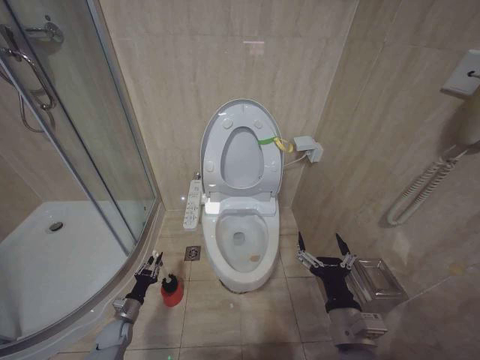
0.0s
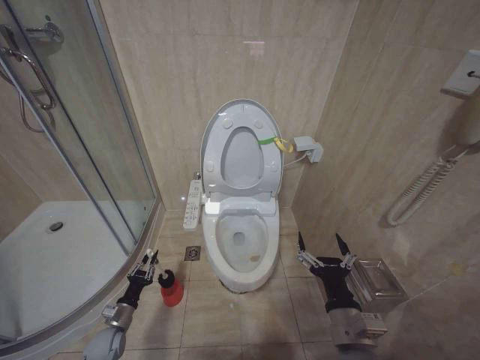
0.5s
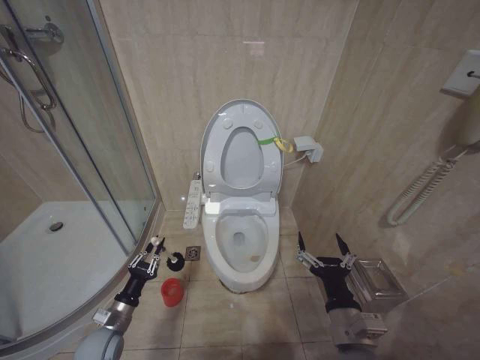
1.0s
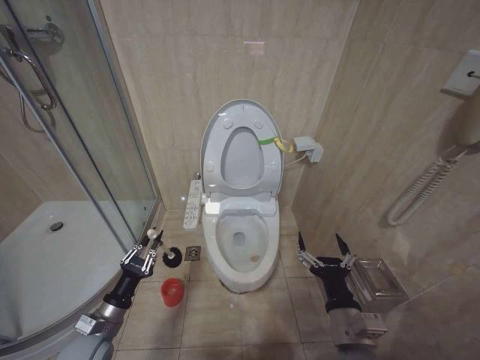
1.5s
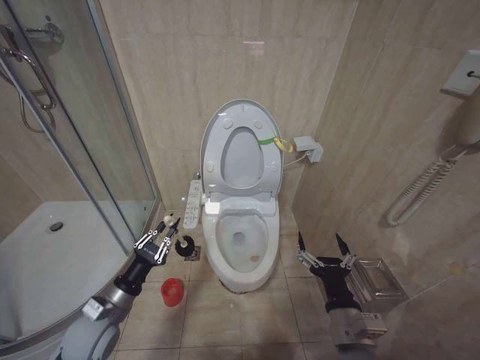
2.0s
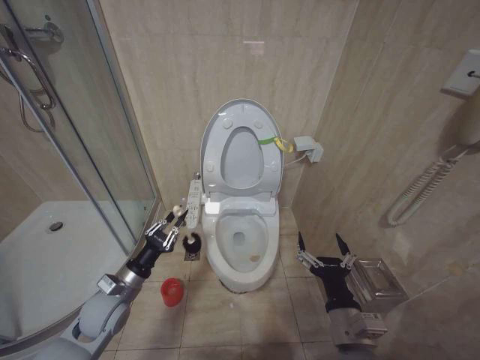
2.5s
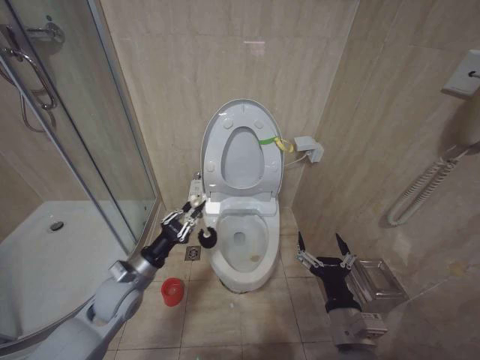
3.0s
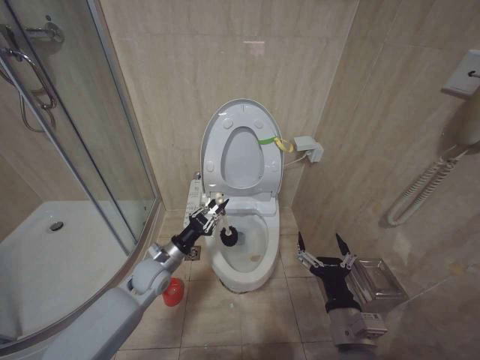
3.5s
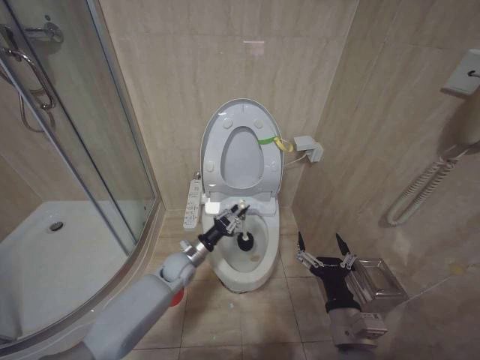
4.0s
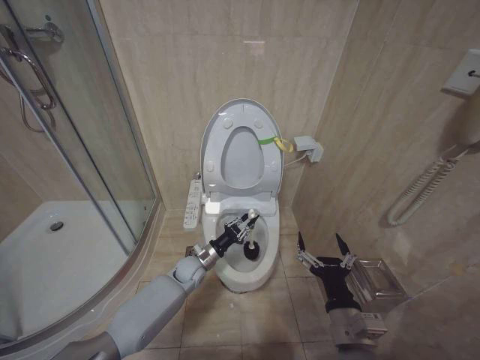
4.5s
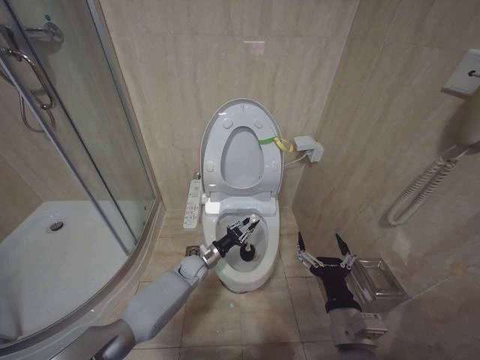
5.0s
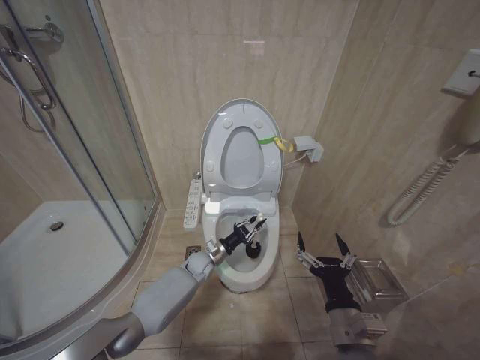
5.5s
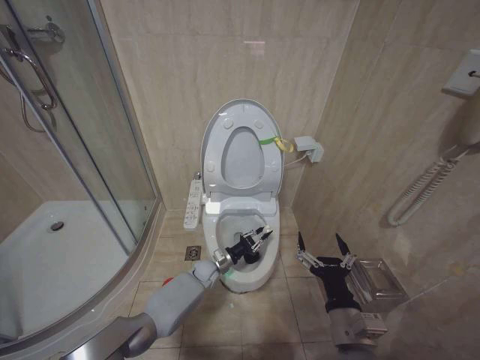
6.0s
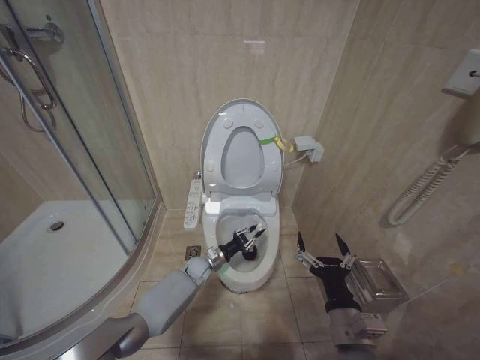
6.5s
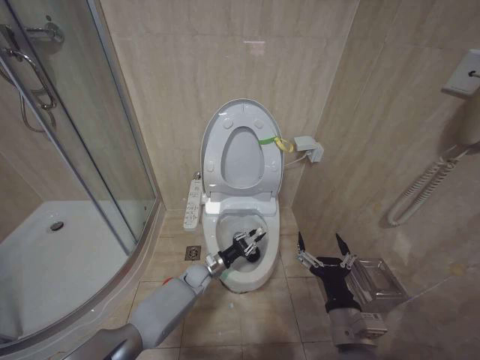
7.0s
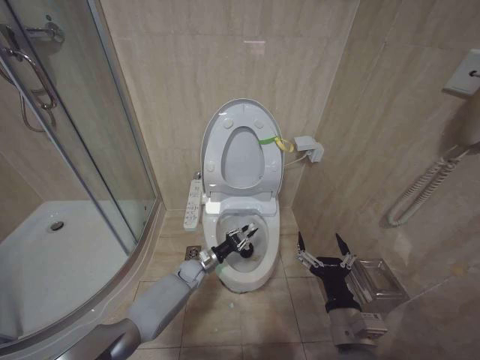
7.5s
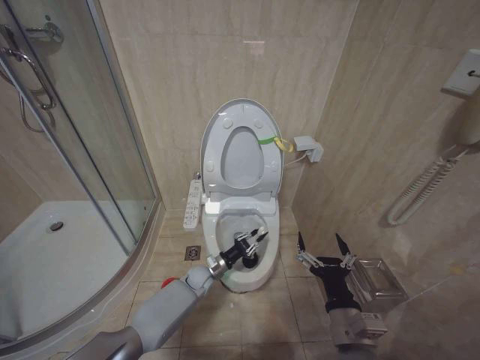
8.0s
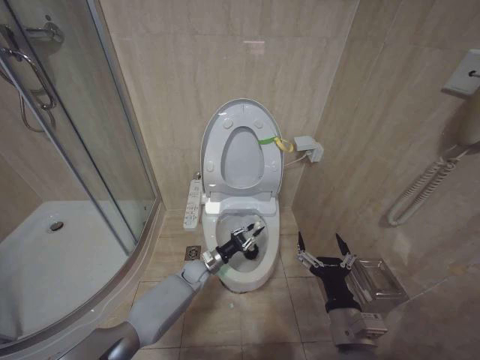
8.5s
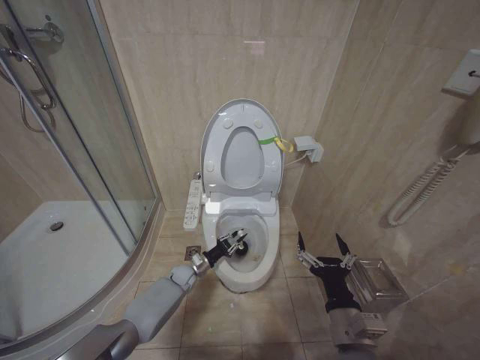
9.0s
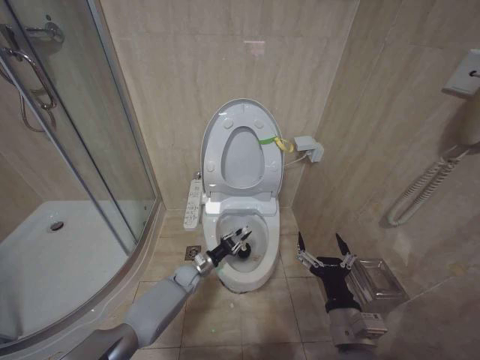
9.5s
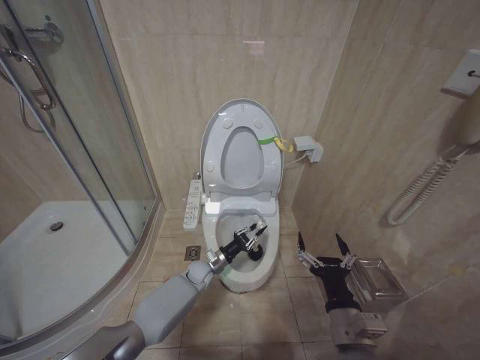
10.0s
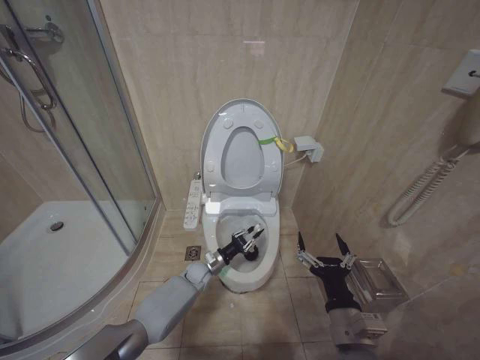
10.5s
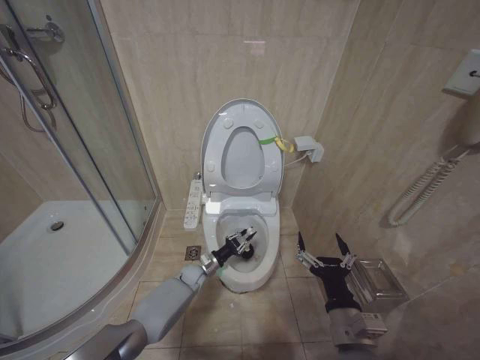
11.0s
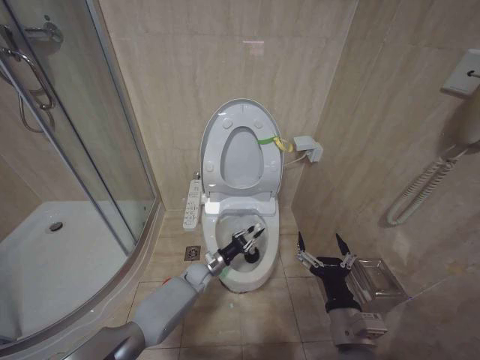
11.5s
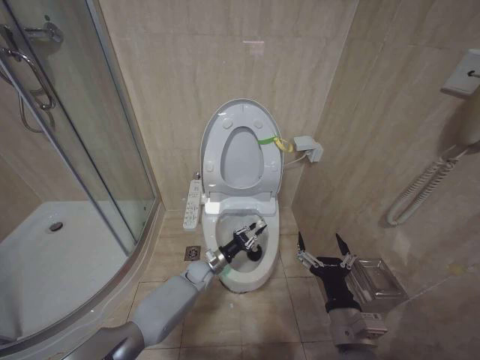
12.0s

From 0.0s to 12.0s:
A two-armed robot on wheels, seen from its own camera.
Task of the whole recording: Open the toilet lid, clean the toilet bowl with a toilet brush, close the toilet lid, and flush.
From 0.0s to 2.0s: The left gripper shifts about 25 cm upward.
From 2.0s to 4.0s: The left gripper travels forward and to the right by approximately 20 cm.
From 4.0s to 6.0s: The left gripper travels downward and to the right by roughly 15 cm.
From 6.0s to 8.0s: The grippers move only a little.

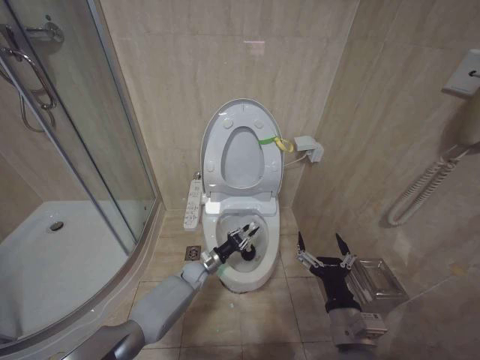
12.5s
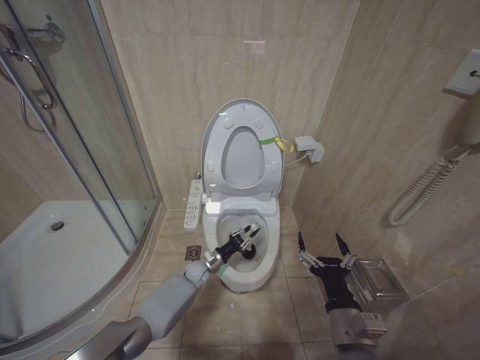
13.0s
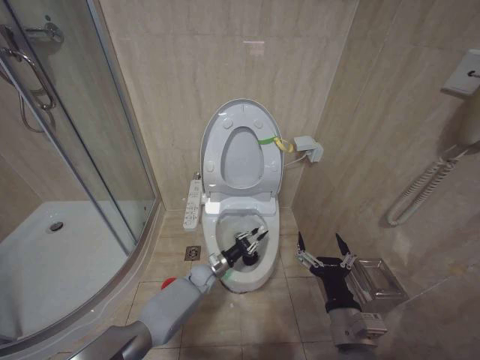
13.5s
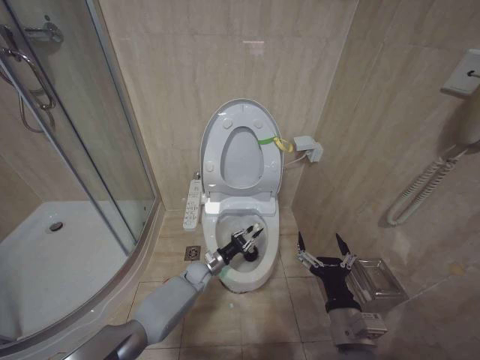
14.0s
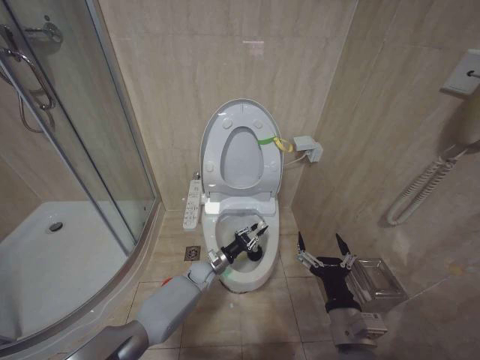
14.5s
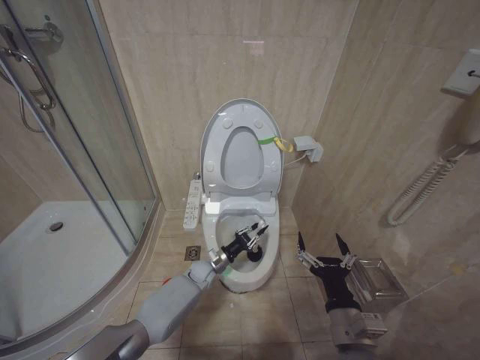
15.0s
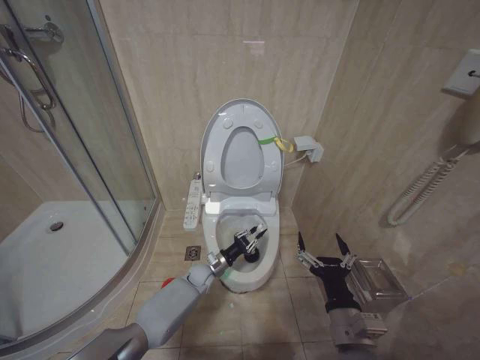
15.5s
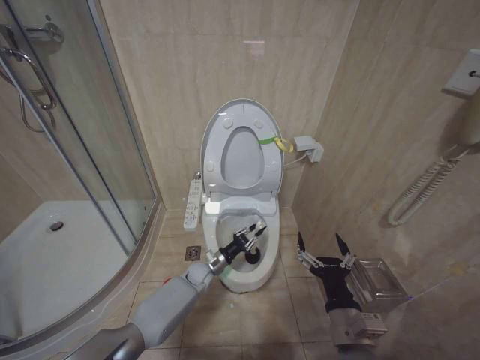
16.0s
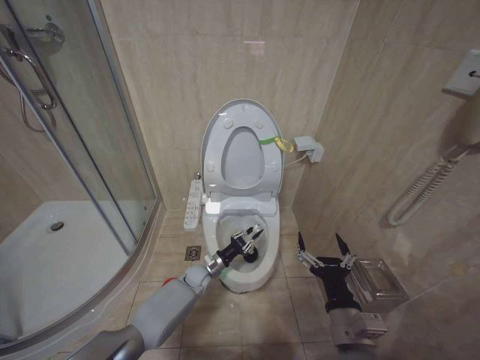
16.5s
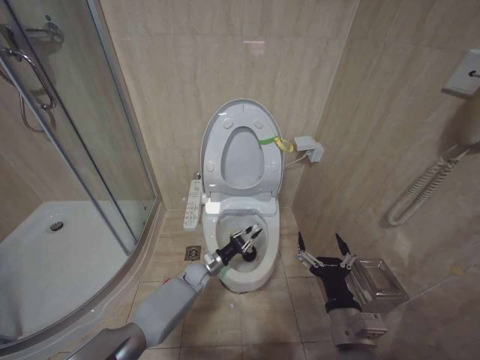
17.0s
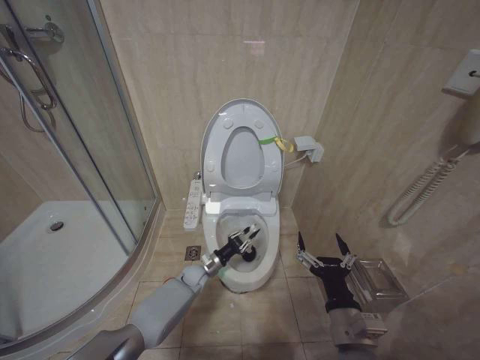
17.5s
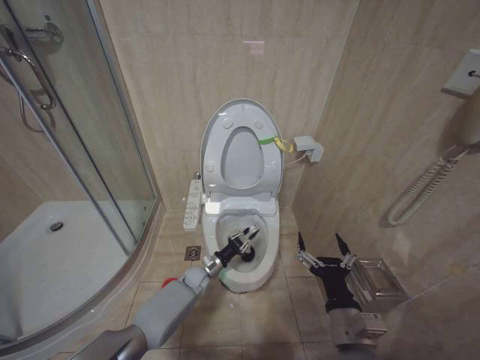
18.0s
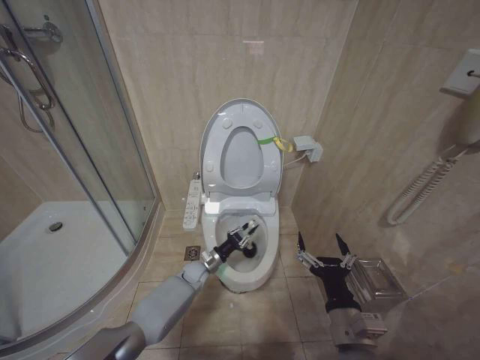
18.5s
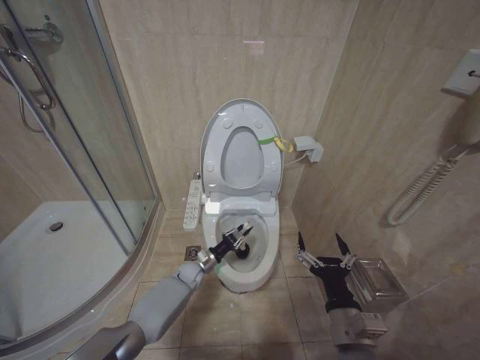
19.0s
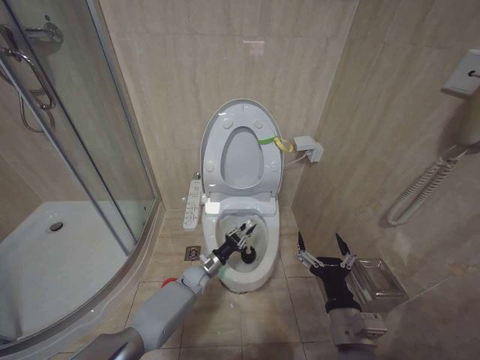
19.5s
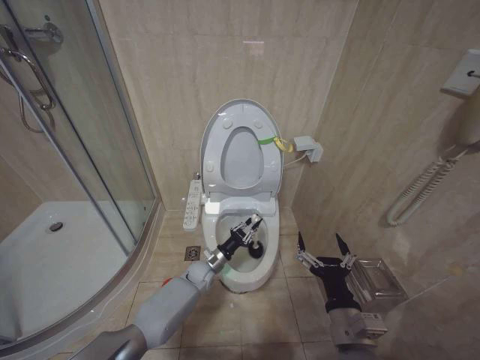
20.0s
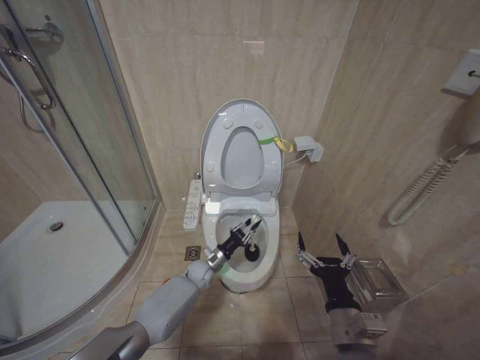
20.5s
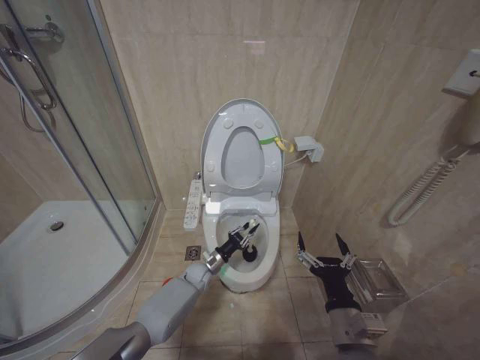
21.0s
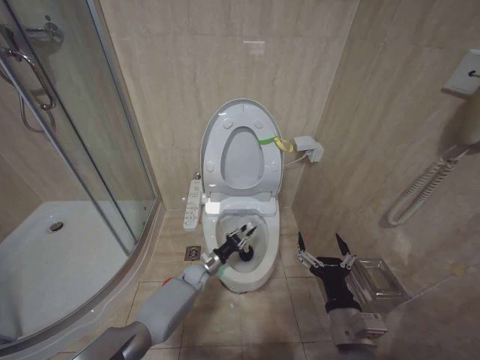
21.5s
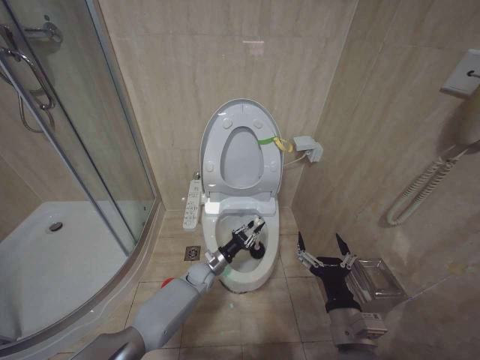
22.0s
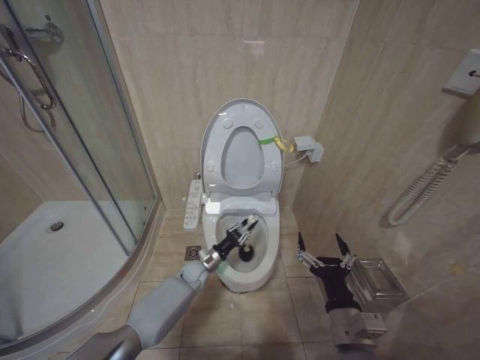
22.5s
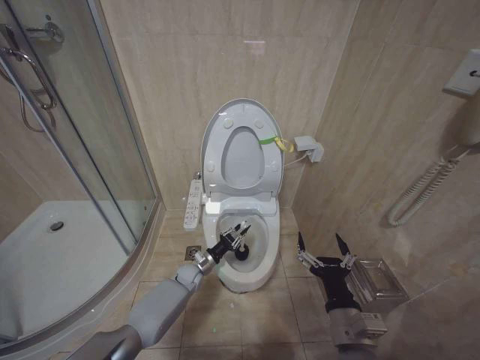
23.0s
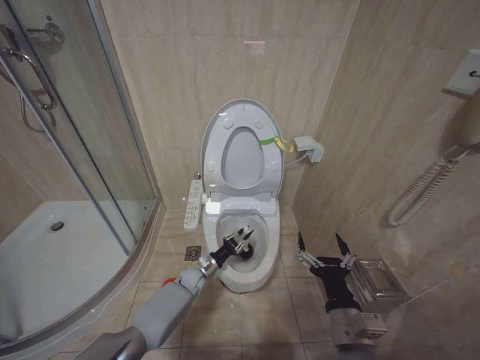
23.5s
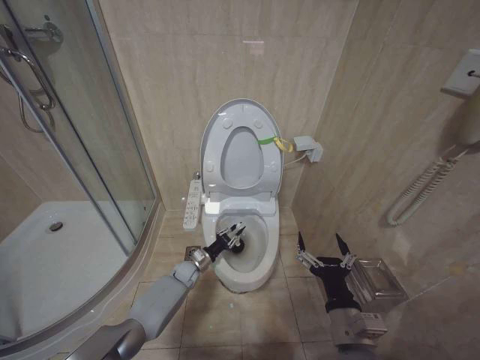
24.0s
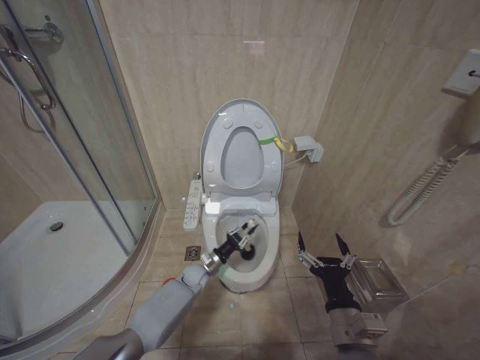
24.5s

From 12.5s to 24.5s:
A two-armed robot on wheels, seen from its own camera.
Task of the whole recording: Open the toilet lid, clean the toilet bowl with a toilet brush, close the toilet lid, and flush.
From 12.5s to 18.5s: The grippers move only a little.
From 20.5s to 22.5s: There are only small adjustments of the grippers.
From 22.5s to 24.5s: The grippers move only a little.

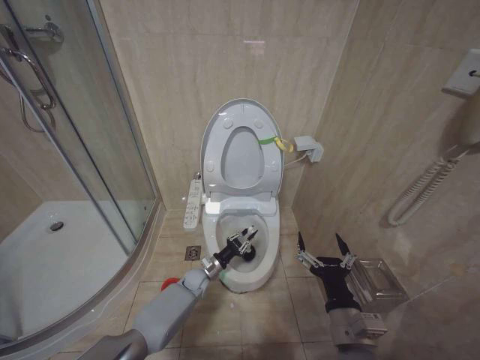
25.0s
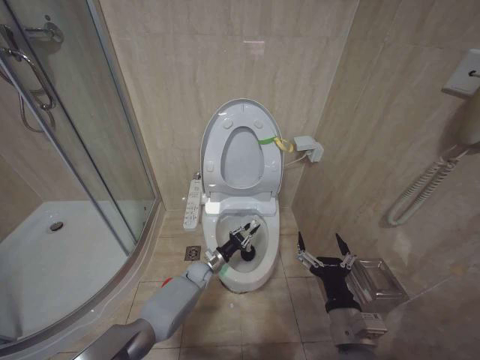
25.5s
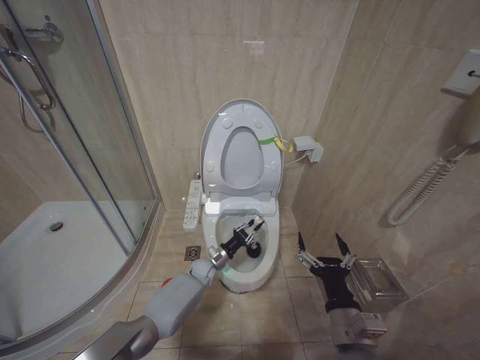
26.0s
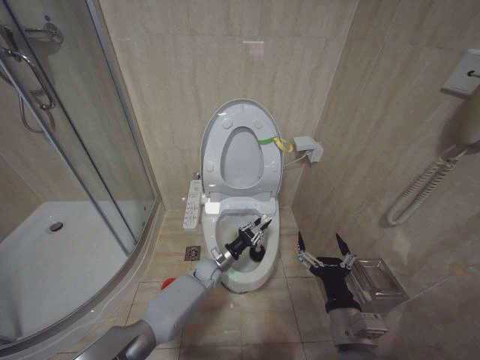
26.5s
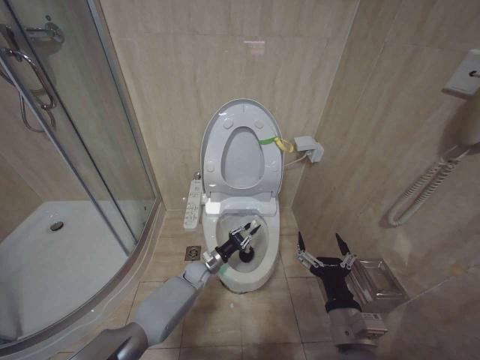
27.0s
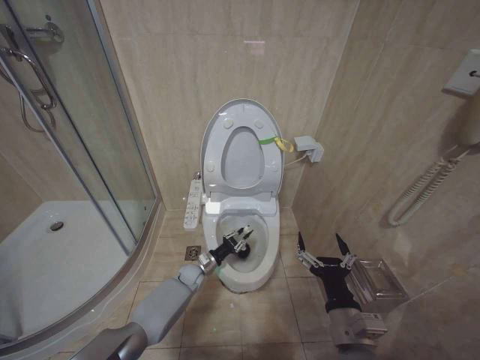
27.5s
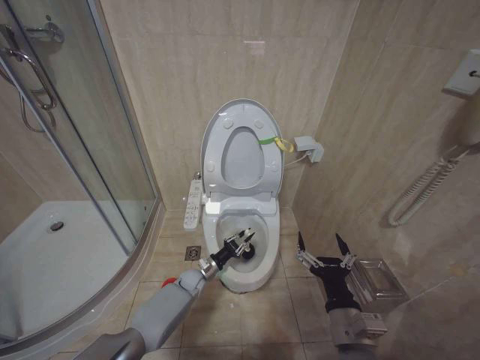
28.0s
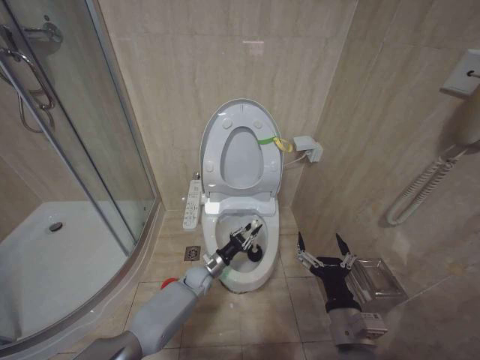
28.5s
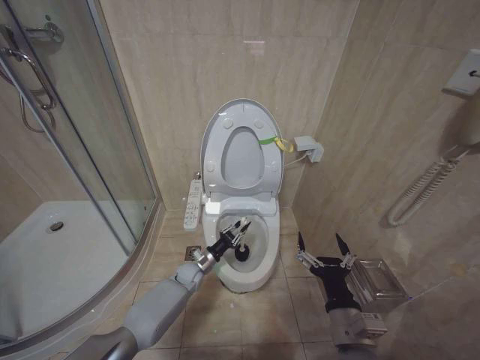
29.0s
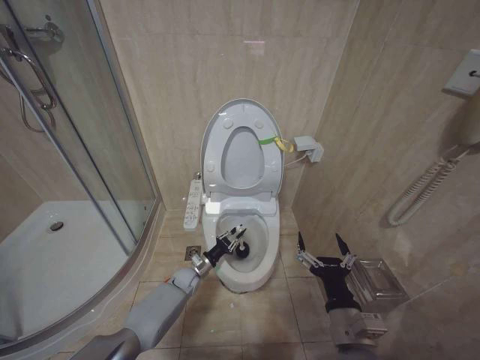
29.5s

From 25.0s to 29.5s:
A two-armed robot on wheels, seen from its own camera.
Task of the whole recording: Open the toilet lid, clean the toilet bowl with a toilet brush, close the toilet lid, and flush.
From 25.0s to 29.5s: The grippers stay close to where they were, moving slightly.
